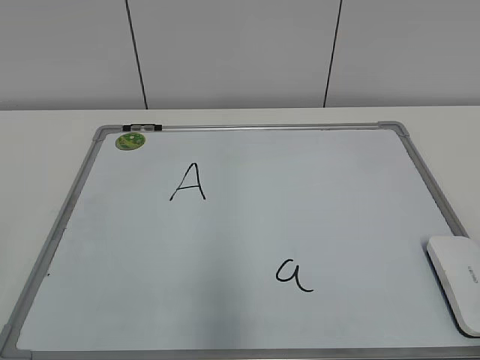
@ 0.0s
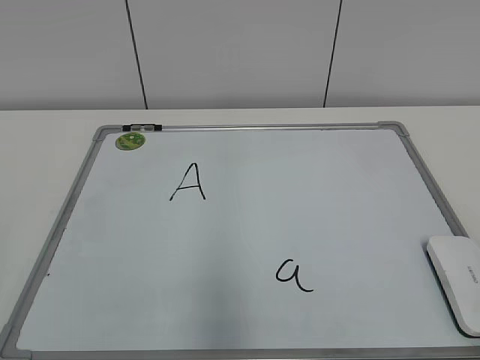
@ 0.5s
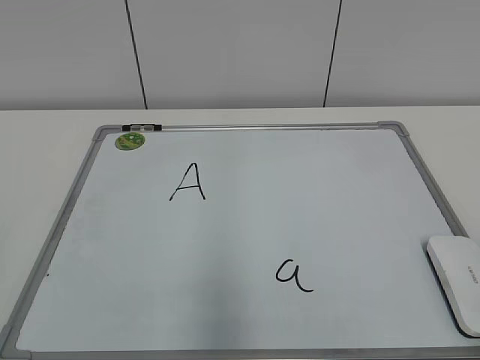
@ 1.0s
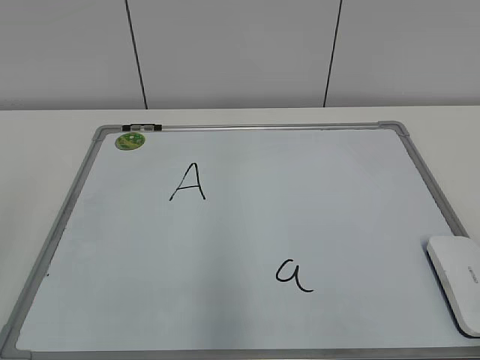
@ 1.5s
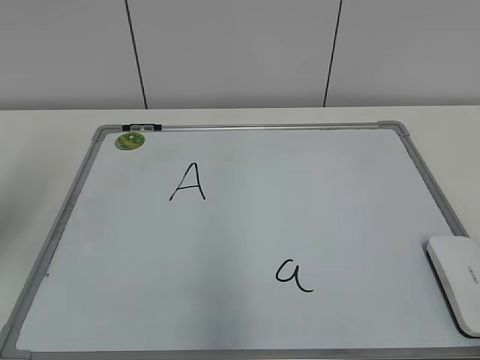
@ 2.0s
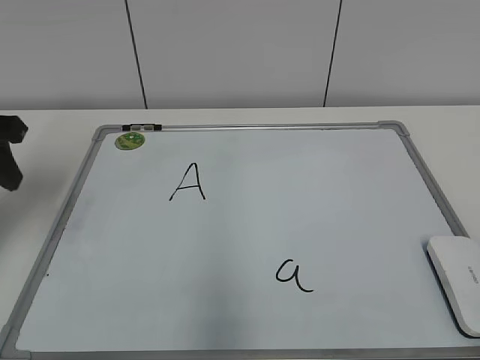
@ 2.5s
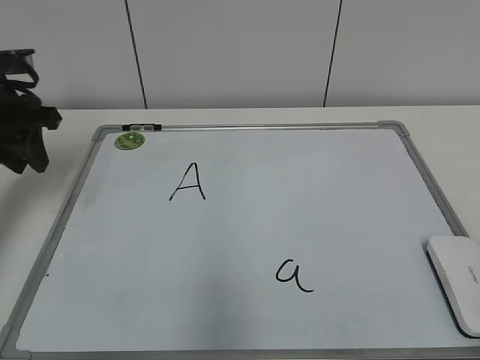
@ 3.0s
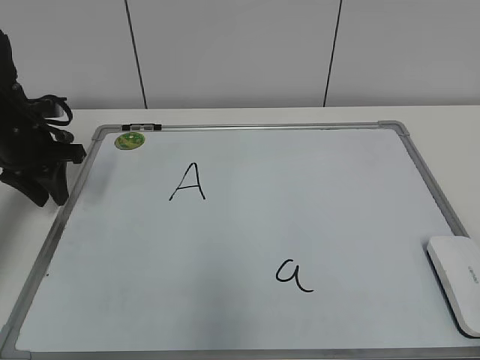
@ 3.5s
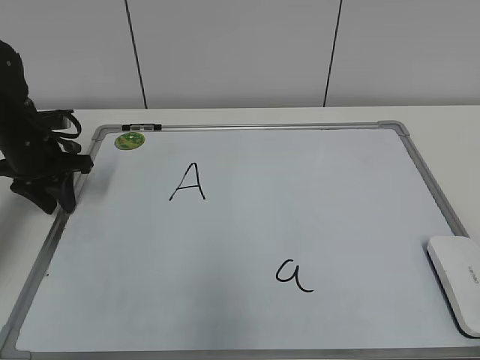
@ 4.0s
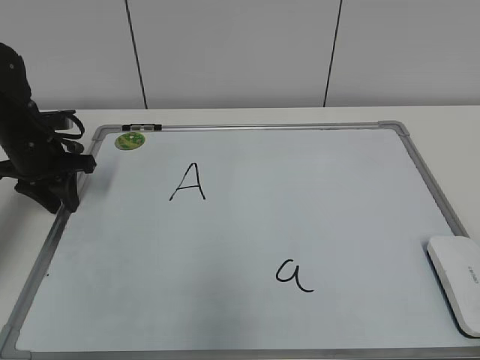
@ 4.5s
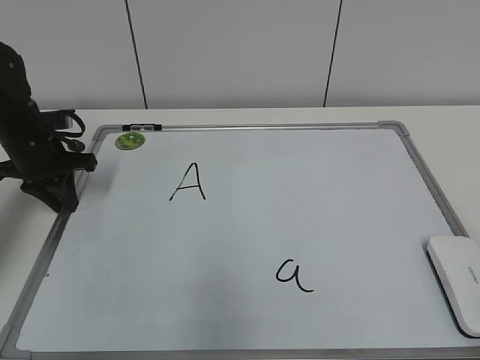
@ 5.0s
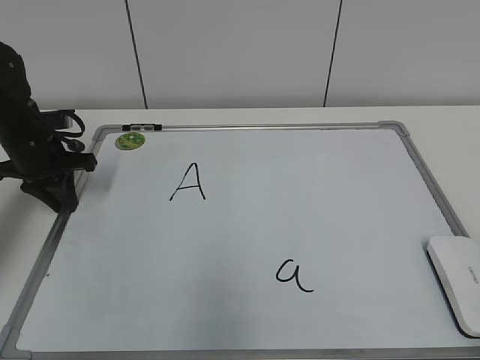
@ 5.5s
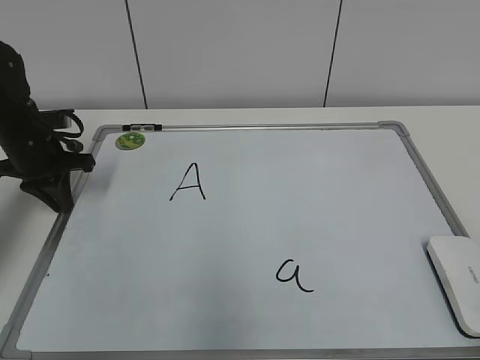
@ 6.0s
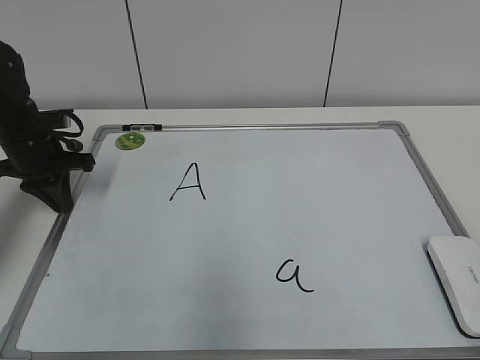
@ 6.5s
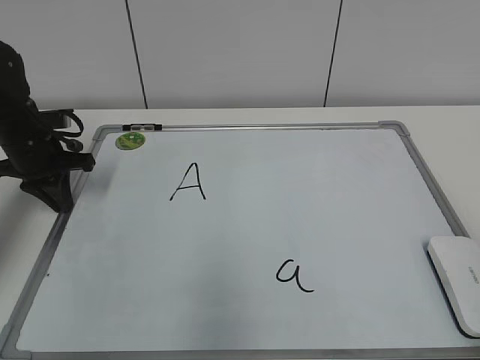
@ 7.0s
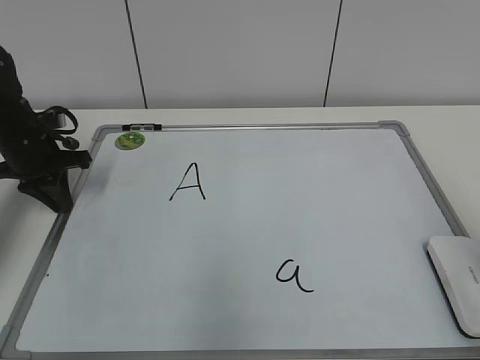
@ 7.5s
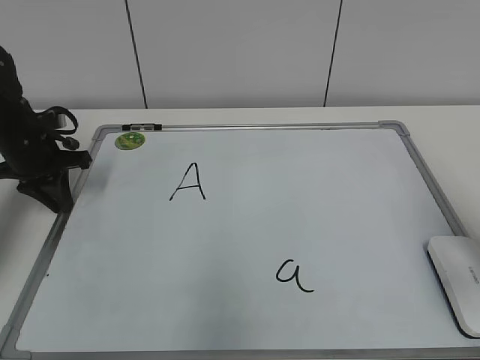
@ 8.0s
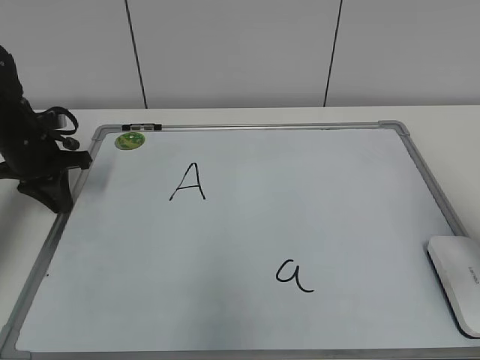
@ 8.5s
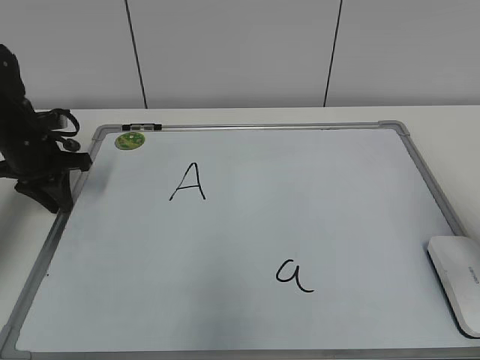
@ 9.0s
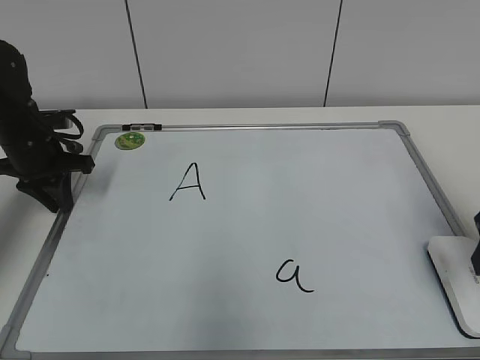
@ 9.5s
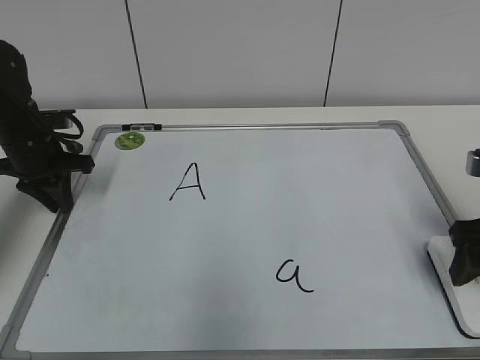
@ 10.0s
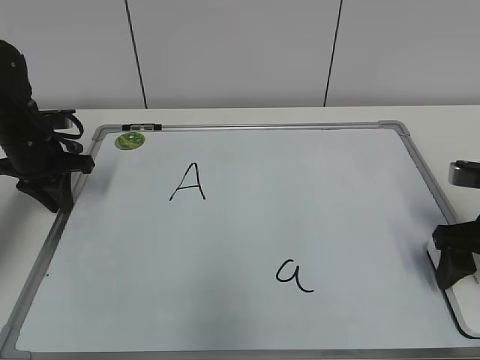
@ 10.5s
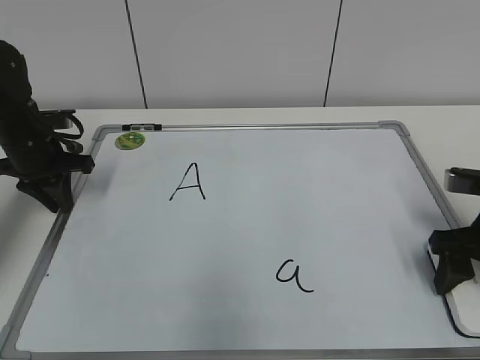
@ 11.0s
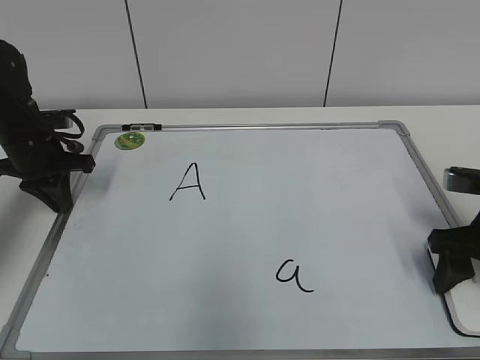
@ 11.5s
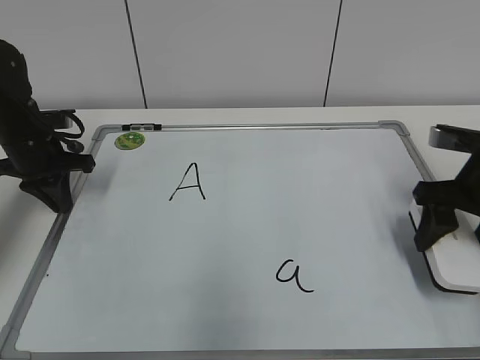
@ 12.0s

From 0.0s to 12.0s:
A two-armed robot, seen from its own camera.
Task of the whole recording: pick up the eraser on the blackboard and erase the letter "a".
Step, from 0.0s to 5.0s: Hold the drawing board steady with your left hand.
Step, from 5.5s to 11.0s: Grab the eraser with your right hand.
From 2.0s to 4.0s: The left gripper travels forward and downward by approximately 30 cm.
From 4.0s to 6.0s: The left gripper closes its fingers.
From 6.0s to 8.0s: The right gripper heads forward, covering roughly 20 cm.
From 8.0s to 10.0s: The right gripper travels downward and forward by about 10 cm, and opens.
From 10.0s to 12.0s: The right gripper goes some 5 cm forward, and closes its fingers.

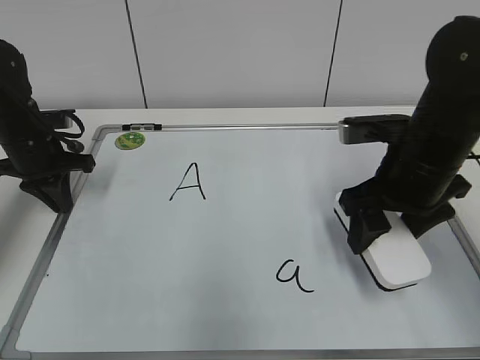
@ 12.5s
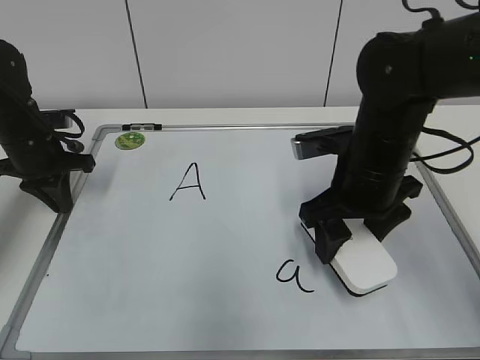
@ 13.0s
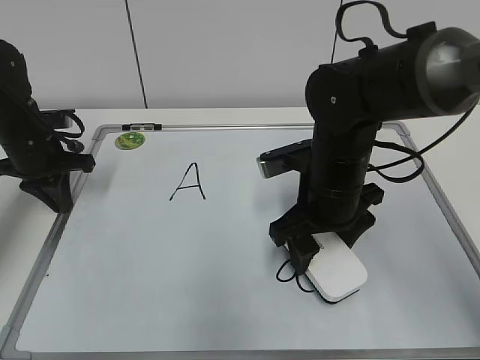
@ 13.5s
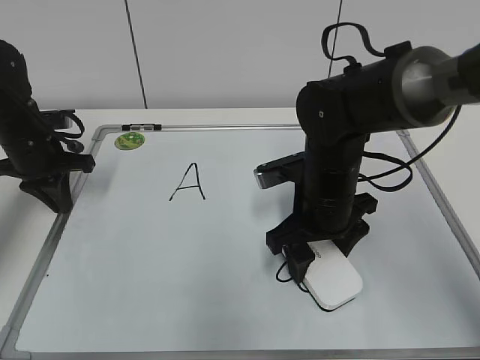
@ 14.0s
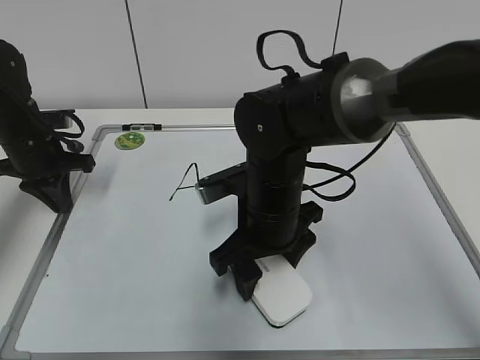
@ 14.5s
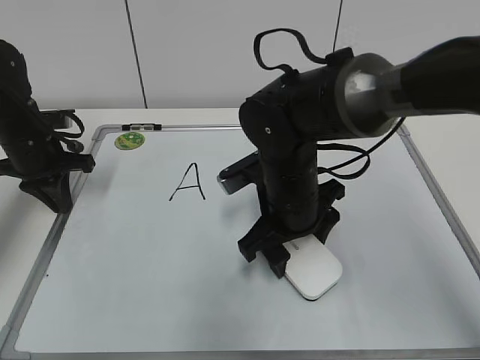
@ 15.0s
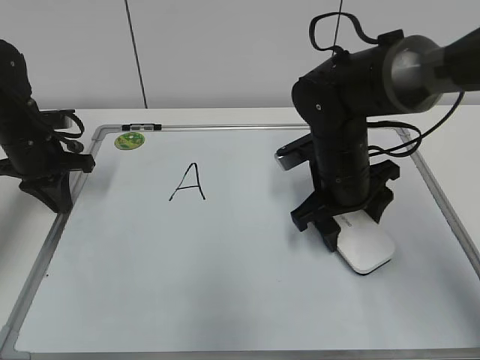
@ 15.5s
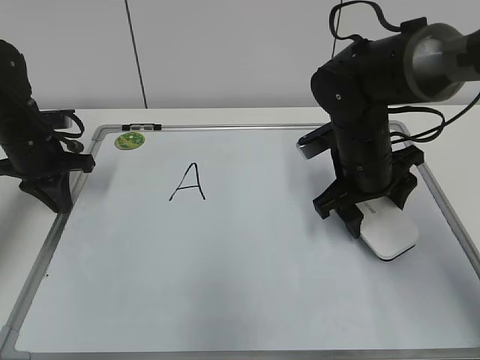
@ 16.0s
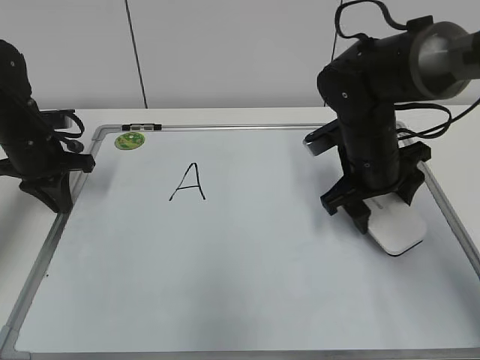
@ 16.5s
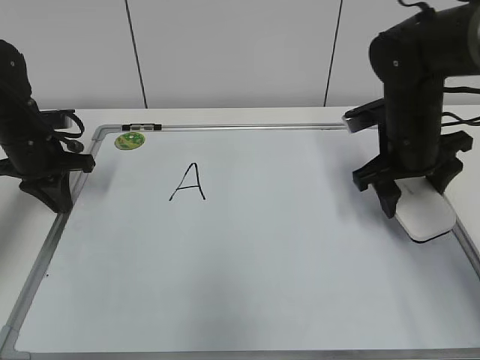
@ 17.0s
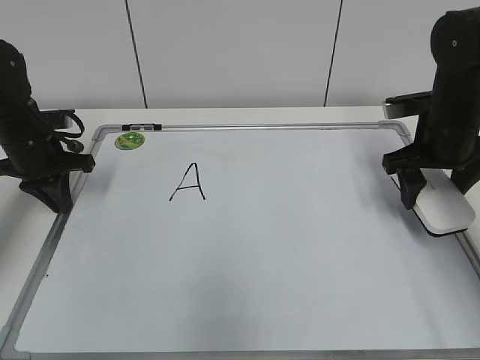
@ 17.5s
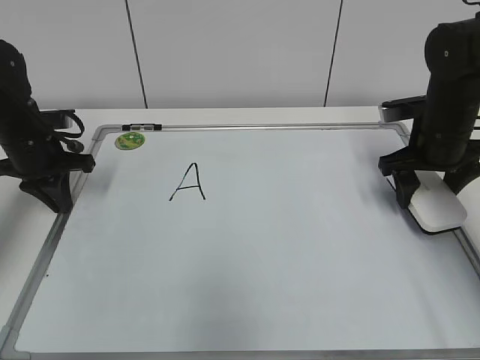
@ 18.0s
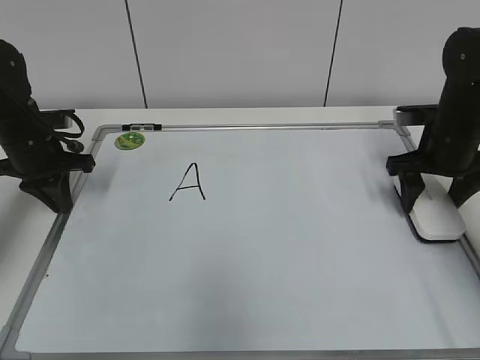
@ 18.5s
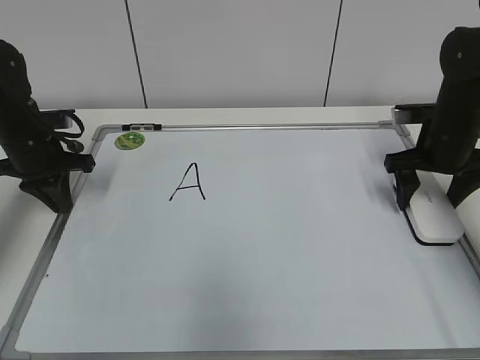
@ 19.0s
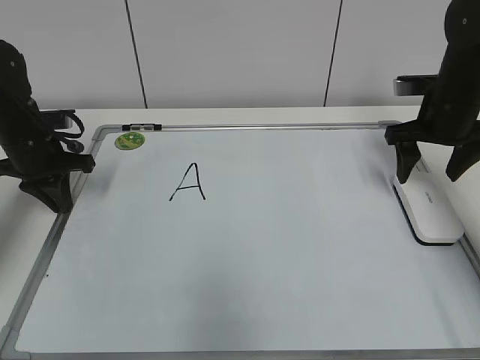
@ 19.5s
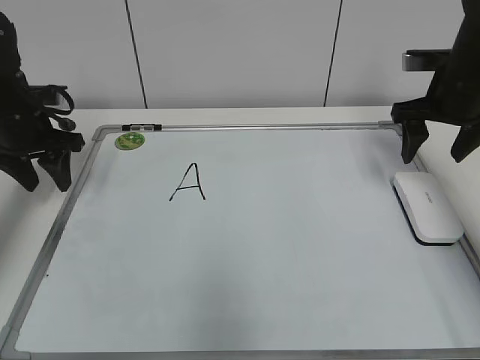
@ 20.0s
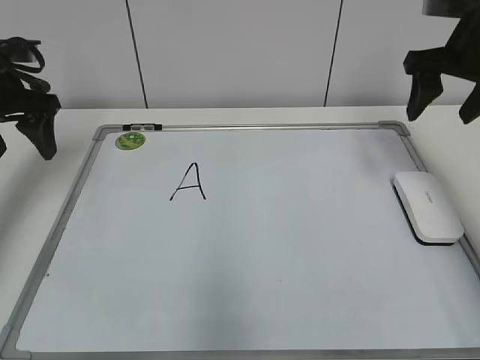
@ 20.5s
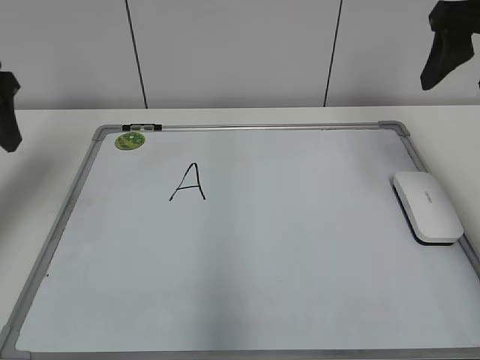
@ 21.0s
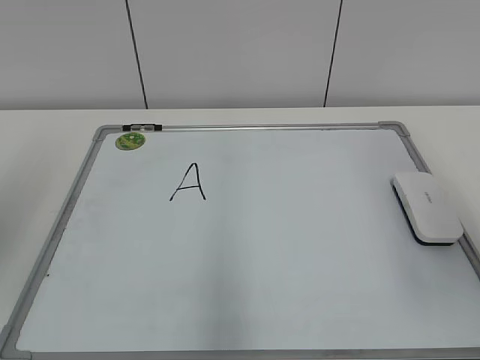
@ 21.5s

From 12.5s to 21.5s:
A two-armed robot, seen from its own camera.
Task of the whole recording: pick up the eraser on the blackboard and erase the letter "a".
Step, from 12.5s to 15.0s: Erase the letter a with your right hand.
Step, from 15.5s to 18.5s: Put down the eraser with your right hand.
From 12.5s to 14.5s: The right gripper travels to the left by roughly 15 cm.
From 14.5s to 17.0s: The right gripper shifts some 20 cm to the right and forward.
From 17.0s to 19.5s: The right gripper is displaced to the right by roughly 10 cm, and opens its fingers.
From 19.5s to 21.5s: Both grippers move backward and upward, roughly 30 cm. The left gripper opens.

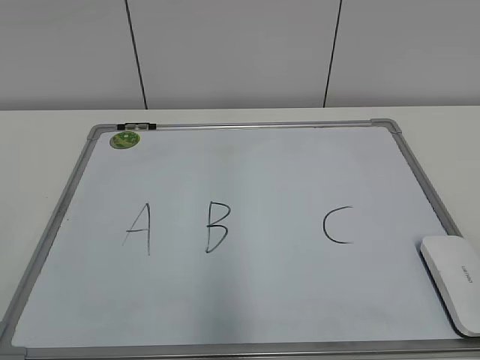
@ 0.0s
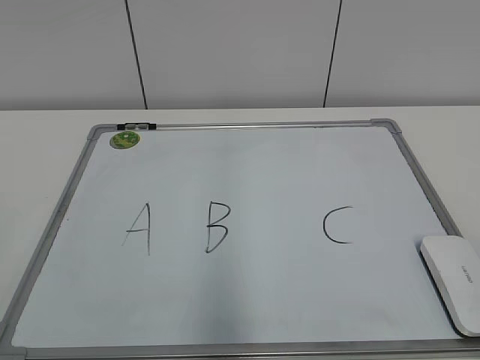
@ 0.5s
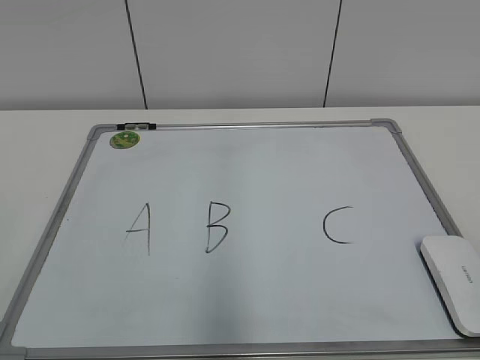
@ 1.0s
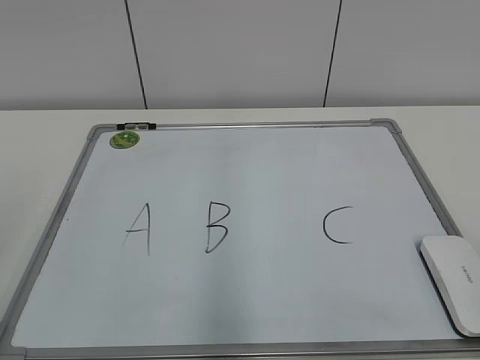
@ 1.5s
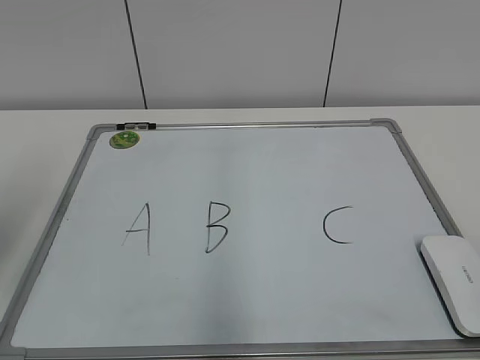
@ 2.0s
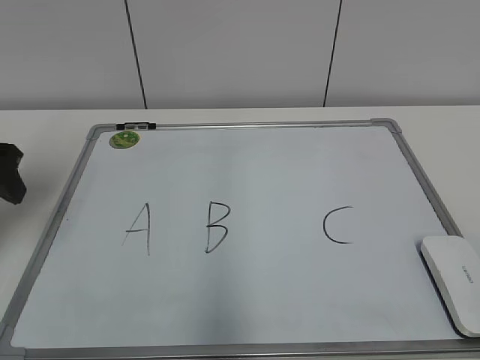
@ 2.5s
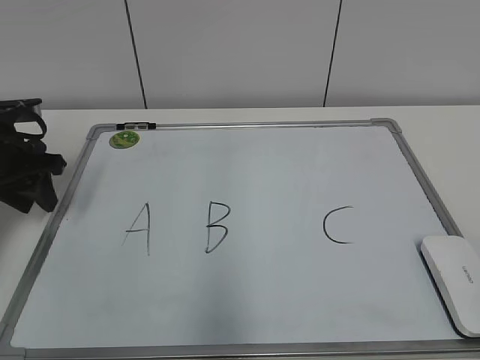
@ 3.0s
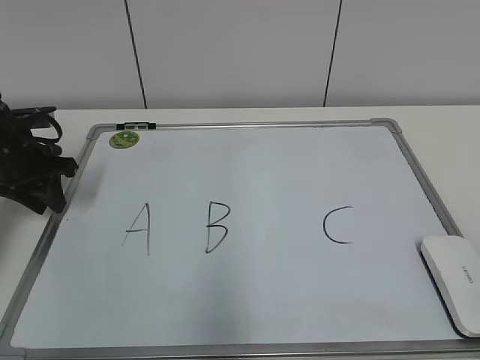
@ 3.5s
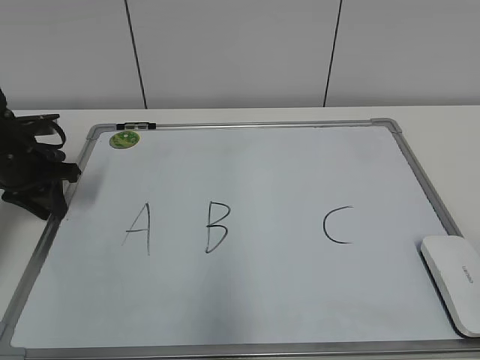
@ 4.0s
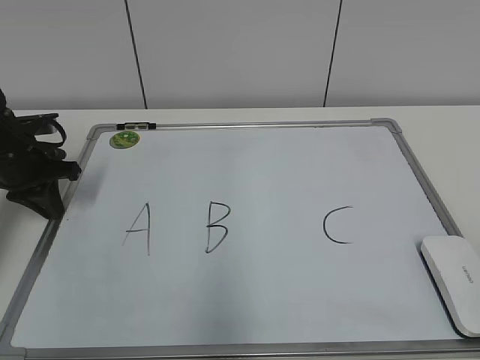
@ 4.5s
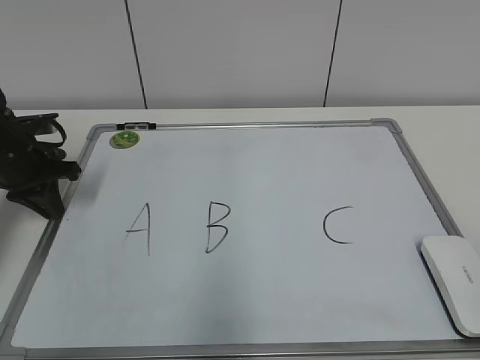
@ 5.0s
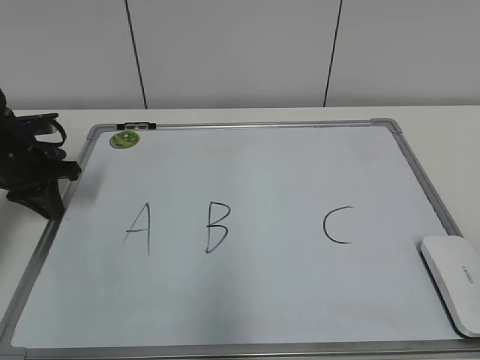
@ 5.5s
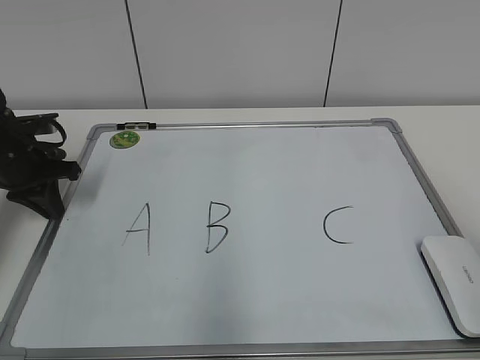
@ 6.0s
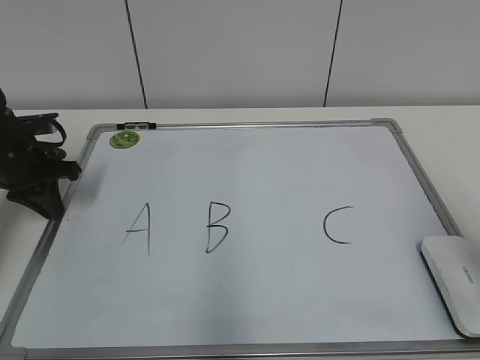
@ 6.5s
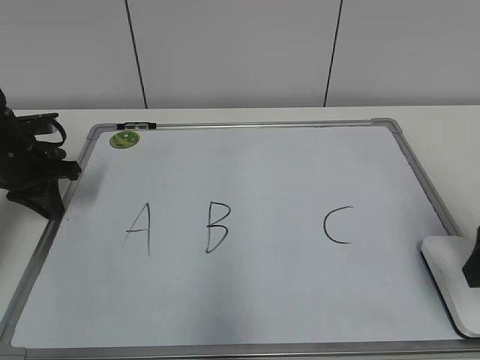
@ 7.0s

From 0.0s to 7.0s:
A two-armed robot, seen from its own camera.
Task of the whole recording: pick up the eraser on the blackboard and erase the letter "B".
Step, from 0.0s to 4.0s: Hold the drawing board steady with your left hand.
From 2.0s to 3.5s: The left gripper travels forward and downward by roughly 25 cm, and closes.
From 3.5s to 5.0s: Neither gripper changes place.
From 5.0s to 7.0s: The right gripper is displaced forward by some 20 cm, and opens up.
